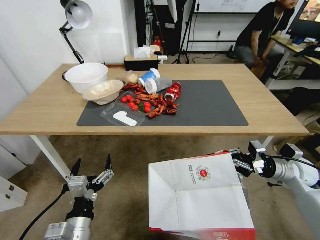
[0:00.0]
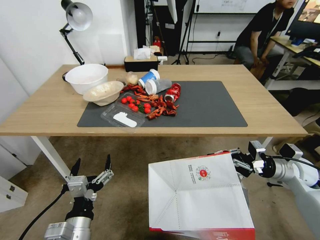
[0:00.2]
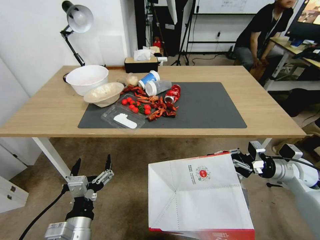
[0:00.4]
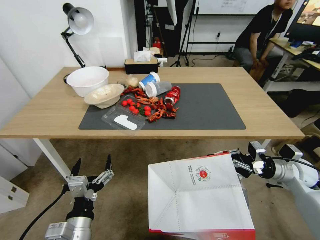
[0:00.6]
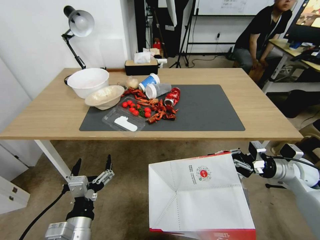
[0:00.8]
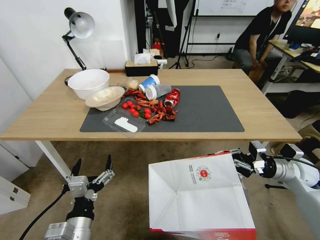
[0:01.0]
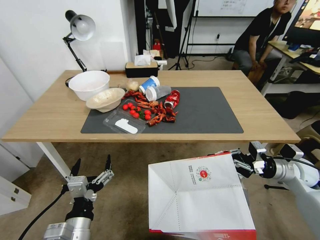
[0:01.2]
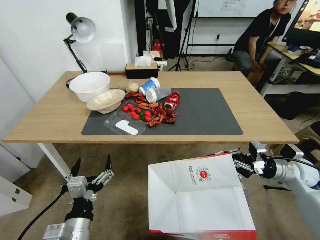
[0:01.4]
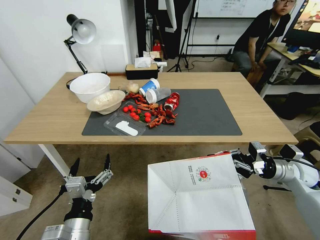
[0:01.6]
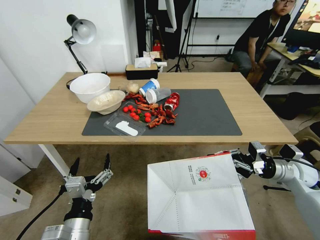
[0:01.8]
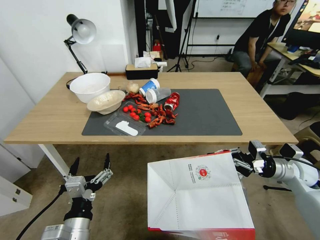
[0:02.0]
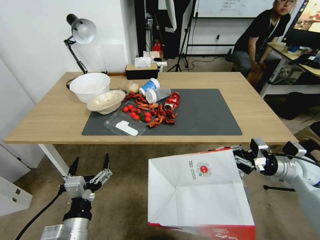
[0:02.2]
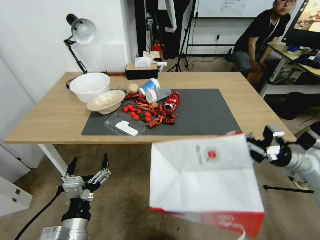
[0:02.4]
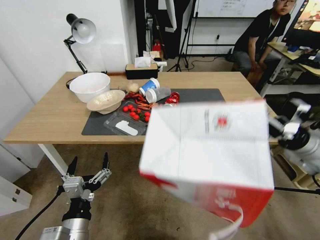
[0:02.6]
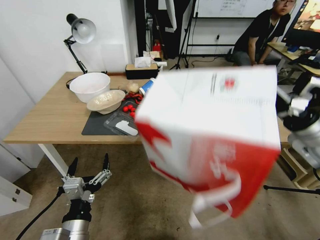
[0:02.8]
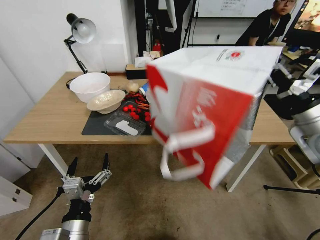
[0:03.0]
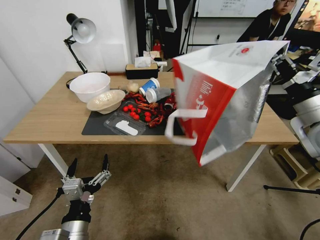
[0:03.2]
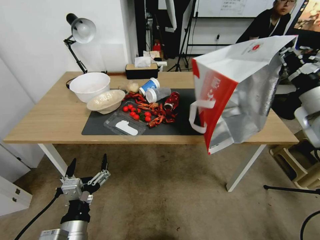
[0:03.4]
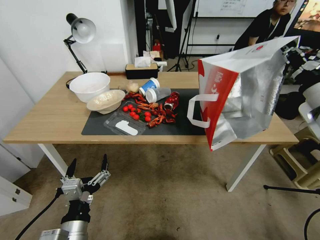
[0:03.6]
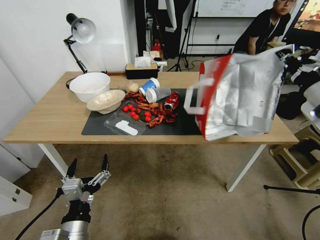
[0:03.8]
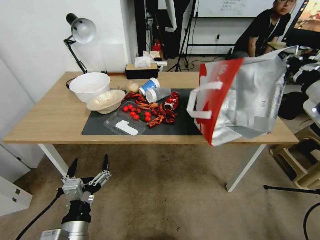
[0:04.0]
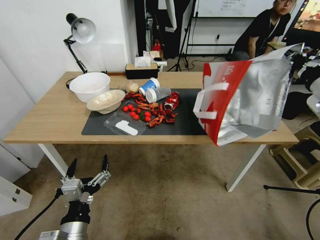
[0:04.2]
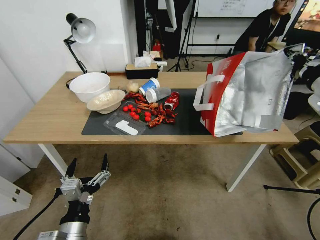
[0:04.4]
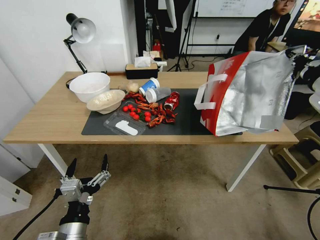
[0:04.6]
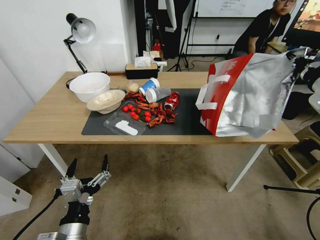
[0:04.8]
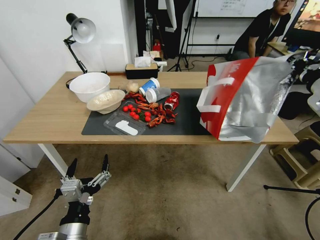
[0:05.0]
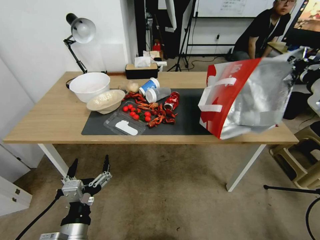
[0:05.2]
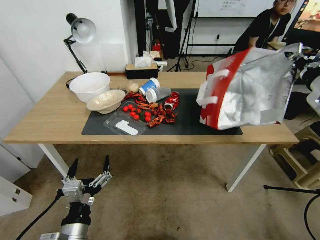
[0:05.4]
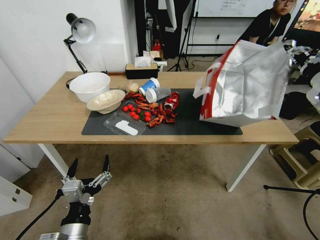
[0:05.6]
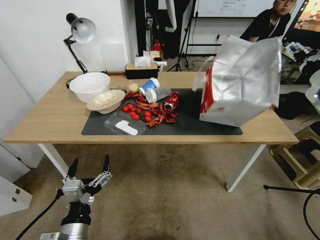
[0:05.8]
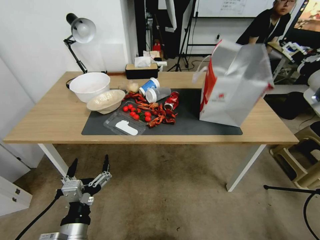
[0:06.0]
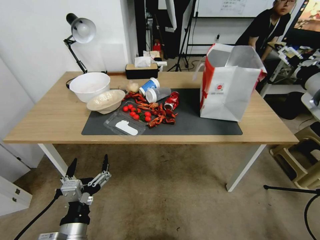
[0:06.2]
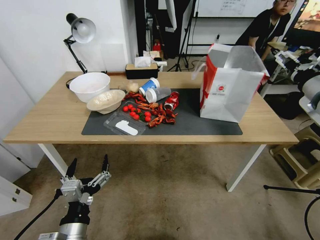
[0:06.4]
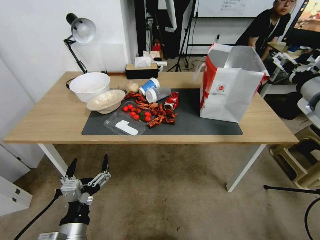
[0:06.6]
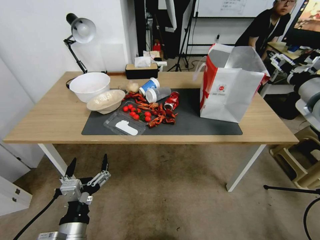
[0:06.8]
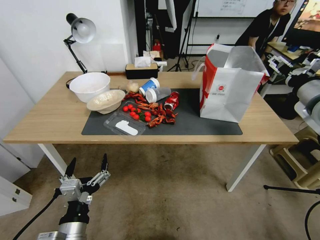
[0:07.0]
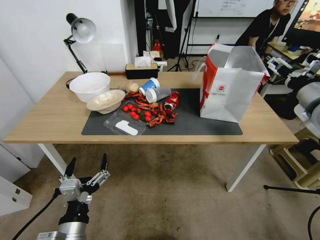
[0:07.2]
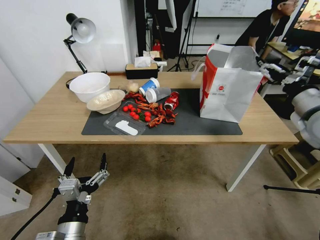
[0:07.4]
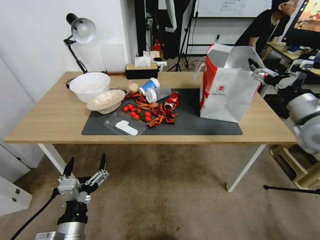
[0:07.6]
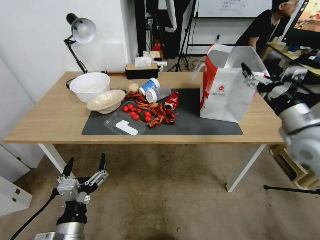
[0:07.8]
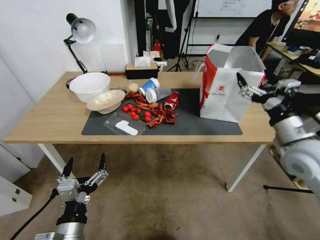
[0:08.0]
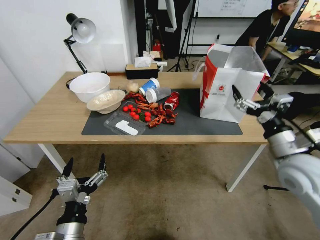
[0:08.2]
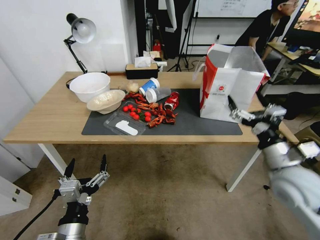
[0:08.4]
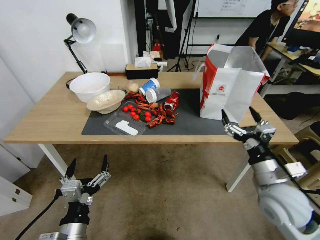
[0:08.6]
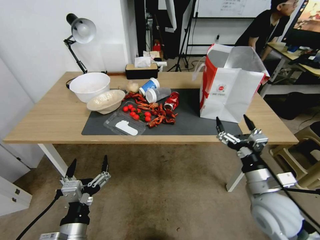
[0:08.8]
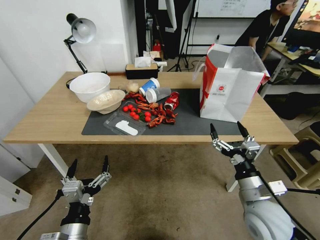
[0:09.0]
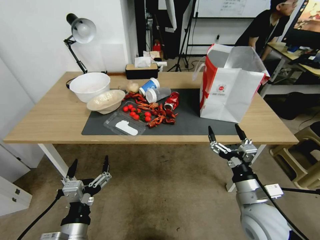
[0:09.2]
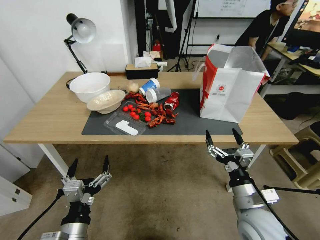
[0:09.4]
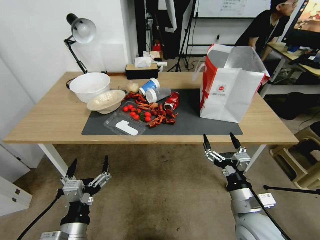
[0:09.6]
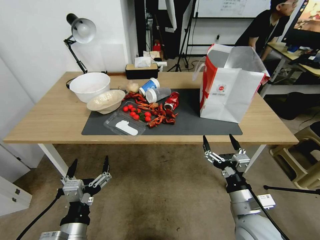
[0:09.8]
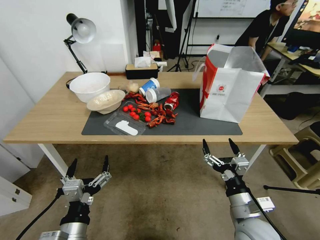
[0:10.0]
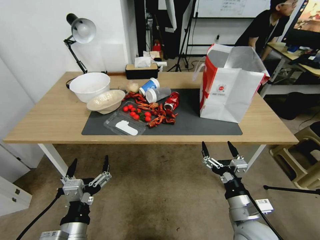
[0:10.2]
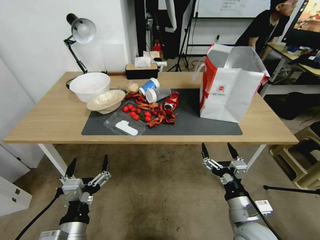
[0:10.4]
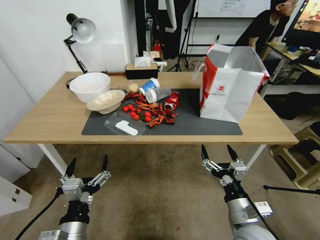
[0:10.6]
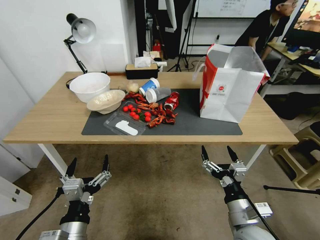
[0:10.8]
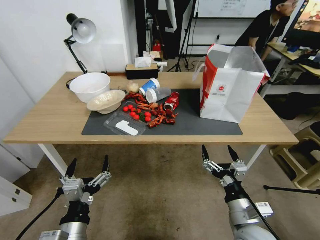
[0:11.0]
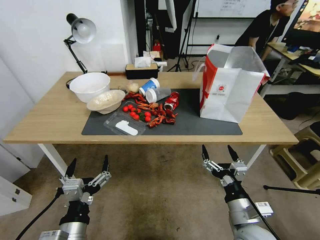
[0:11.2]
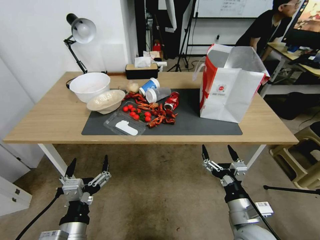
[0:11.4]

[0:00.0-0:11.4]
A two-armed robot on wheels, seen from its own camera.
Task of the whole recording: Pick up the food delivery bag from the floor and place it on the table.
0:01.4 to 0:02.8: The right gripper is displaced upward by roughly 15 cm.
0:02.8 to 0:04.2: The right gripper moves upward, some 10 cm.
0:04.2 to 0:05.6: The right gripper opens up.
0:05.6 to 0:07.2: The right gripper opens up.
0:07.2 to 0:08.6: The right gripper is displaced downward, backward and to the left by approximately 25 cm.
0:08.6 to 0:10.0: The right gripper heads downward, to the left and backward, covering about 10 cm.
0:10.0 to 0:11.4: The grippers stay close to where they were, moving slightly.

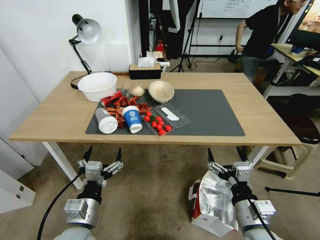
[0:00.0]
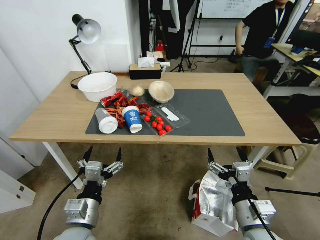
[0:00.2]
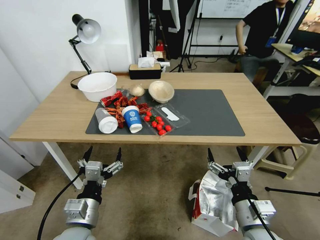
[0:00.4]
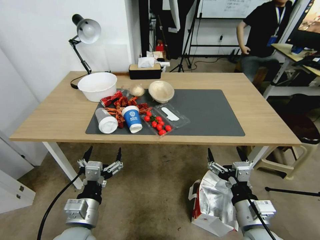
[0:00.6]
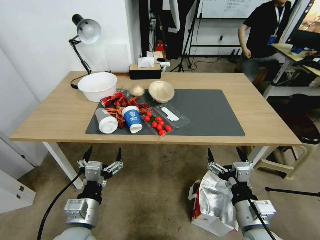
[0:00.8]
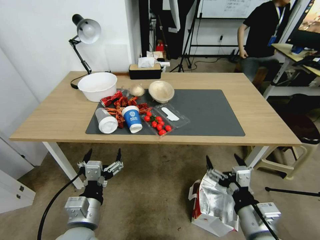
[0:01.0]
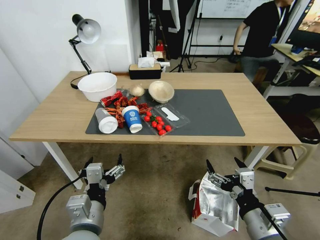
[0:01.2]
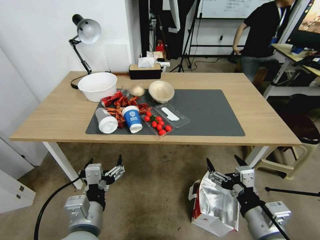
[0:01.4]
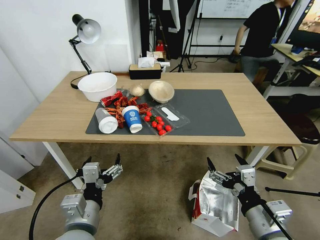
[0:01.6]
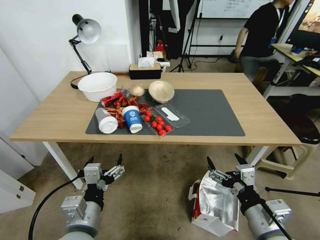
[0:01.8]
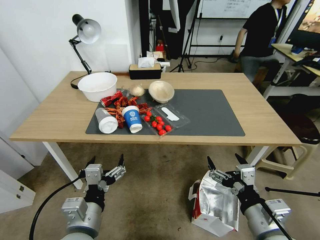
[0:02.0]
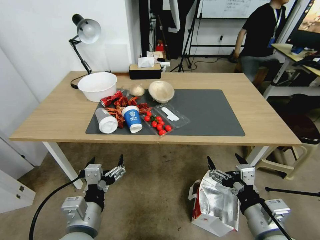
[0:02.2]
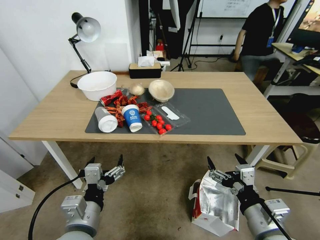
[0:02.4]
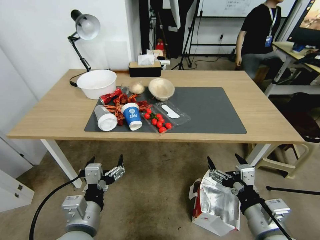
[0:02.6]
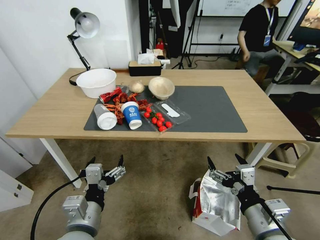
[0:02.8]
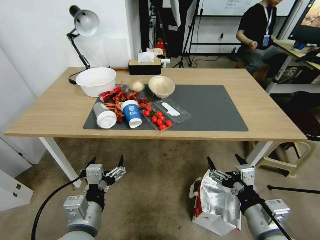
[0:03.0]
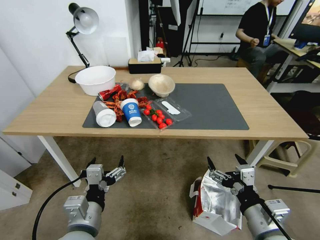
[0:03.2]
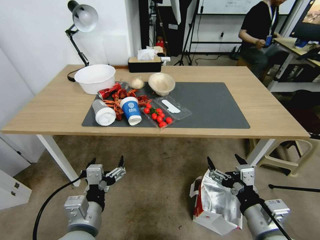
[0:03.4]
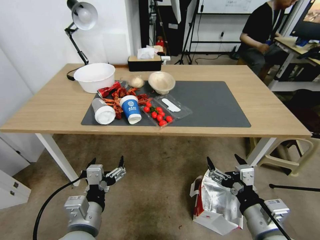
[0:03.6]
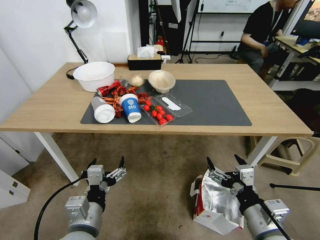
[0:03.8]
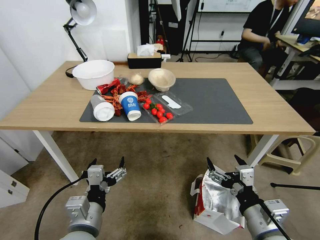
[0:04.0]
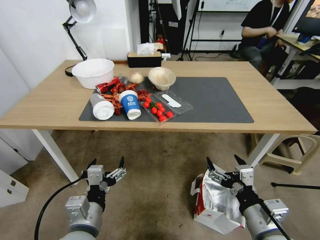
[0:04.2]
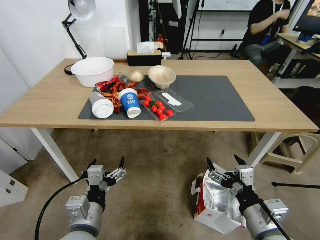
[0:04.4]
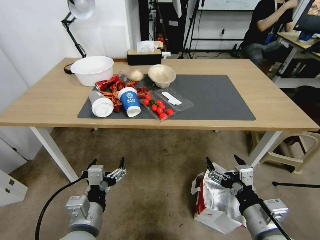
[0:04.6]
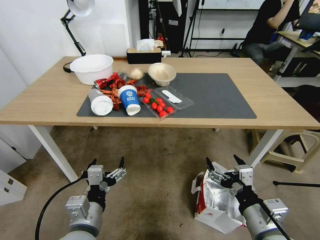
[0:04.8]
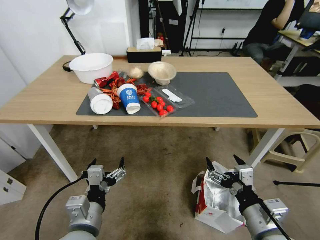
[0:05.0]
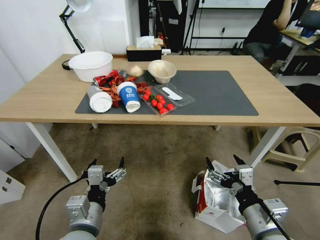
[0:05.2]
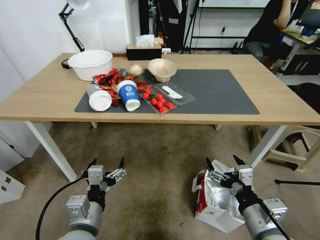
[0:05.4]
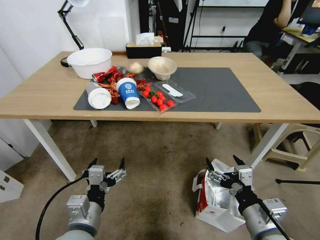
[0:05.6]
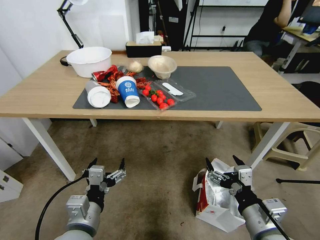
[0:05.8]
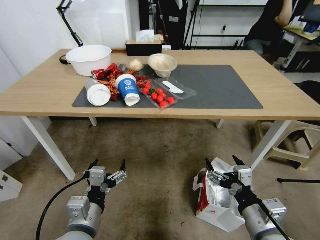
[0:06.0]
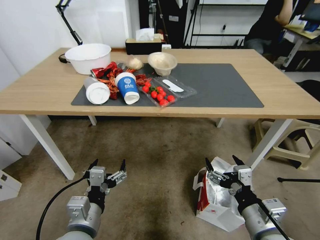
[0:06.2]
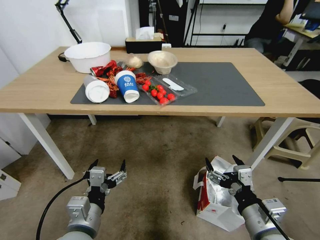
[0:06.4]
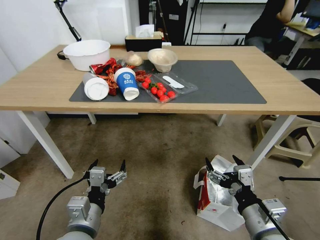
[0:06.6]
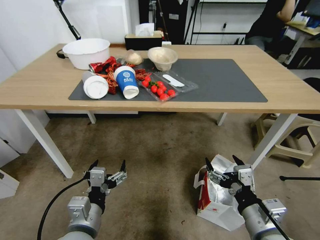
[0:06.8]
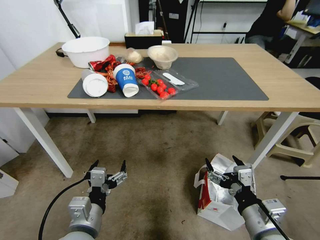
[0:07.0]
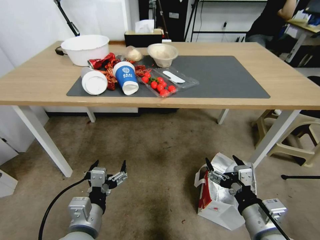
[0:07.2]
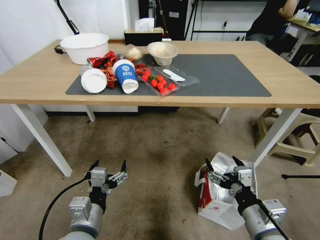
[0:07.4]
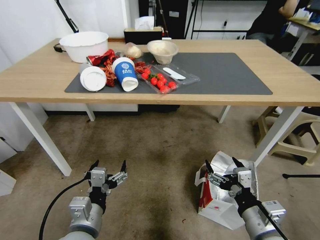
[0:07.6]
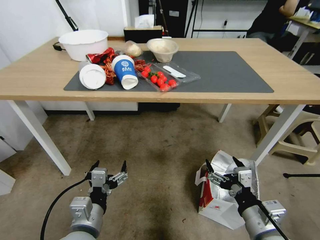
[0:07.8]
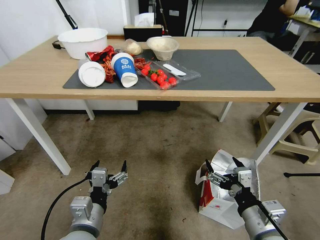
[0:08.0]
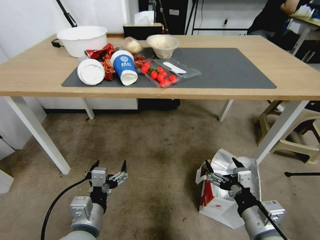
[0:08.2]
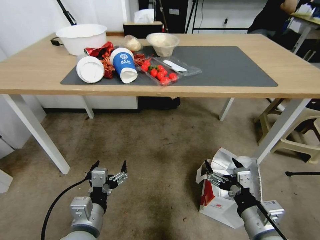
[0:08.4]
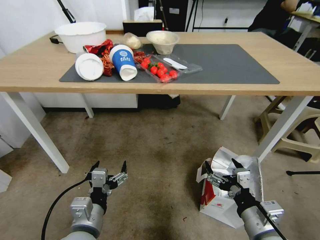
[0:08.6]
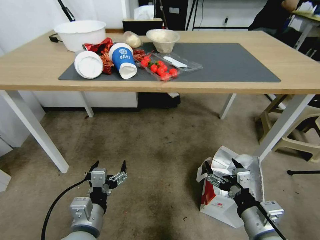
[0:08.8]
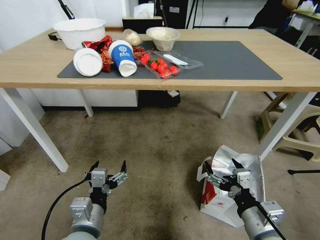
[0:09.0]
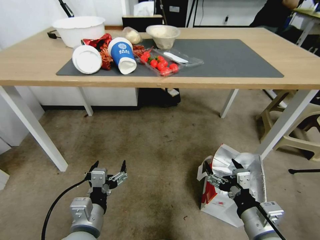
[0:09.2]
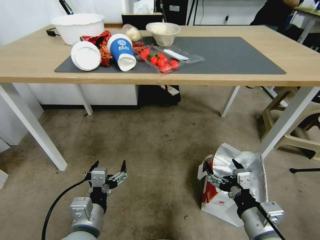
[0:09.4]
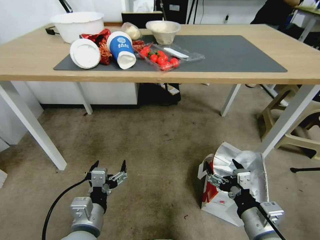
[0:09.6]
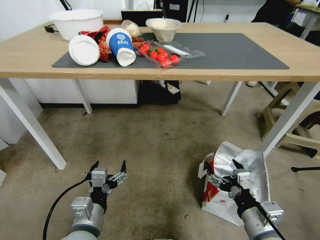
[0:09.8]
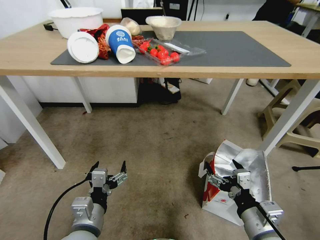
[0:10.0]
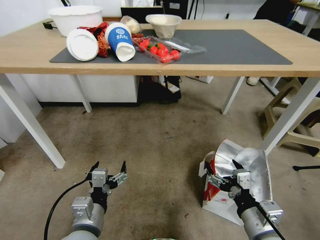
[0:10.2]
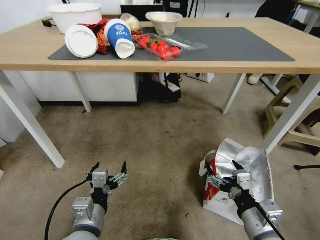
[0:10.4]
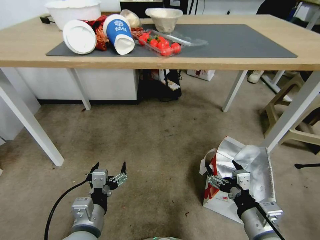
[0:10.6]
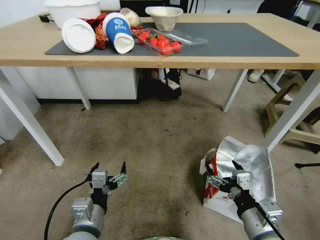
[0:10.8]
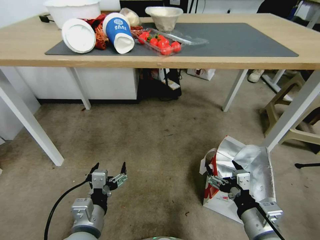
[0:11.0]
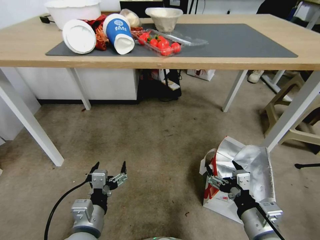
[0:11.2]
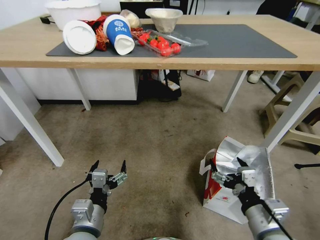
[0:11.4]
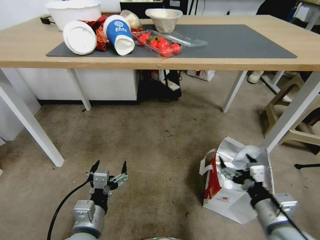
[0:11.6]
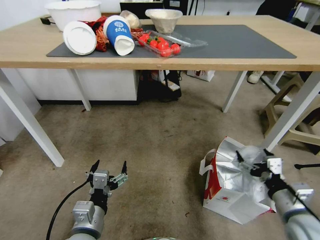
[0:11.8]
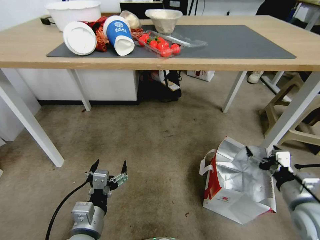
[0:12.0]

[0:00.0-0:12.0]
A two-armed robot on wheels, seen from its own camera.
Task of the whole recording: Pick up the food delivery bag from the floor and place it on the table.
0:10.4 to 0:12.0: The right gripper travels to the right and forward by some 15 cm.
